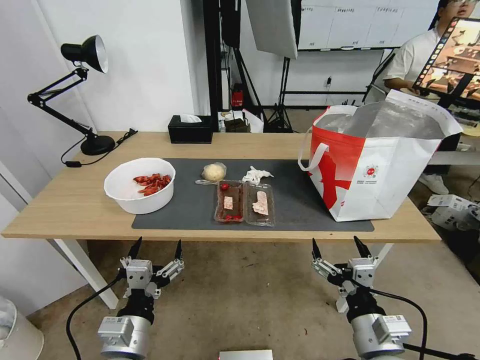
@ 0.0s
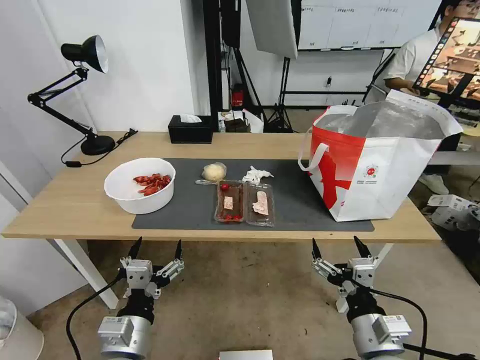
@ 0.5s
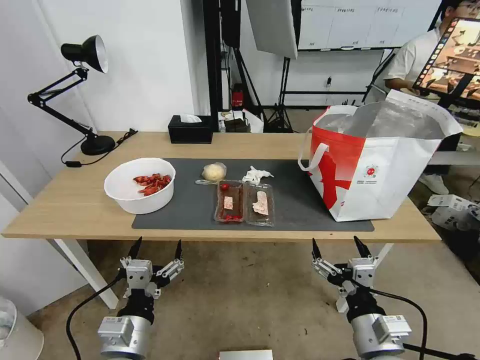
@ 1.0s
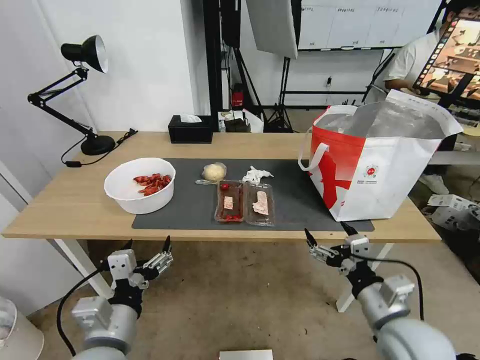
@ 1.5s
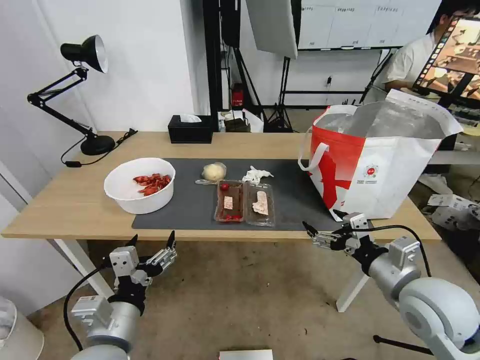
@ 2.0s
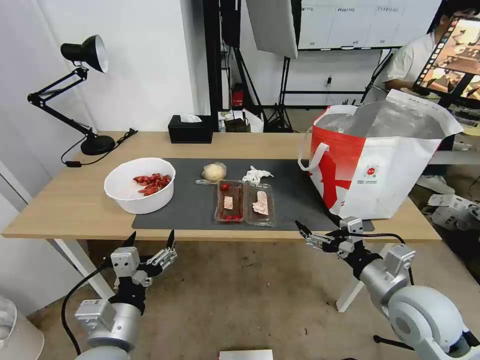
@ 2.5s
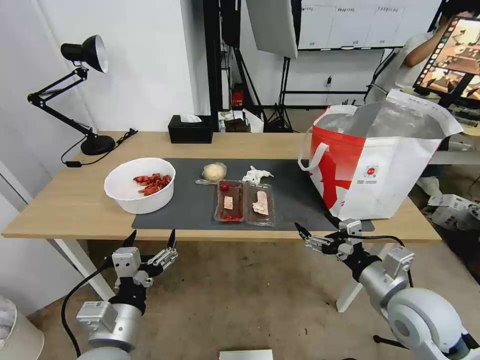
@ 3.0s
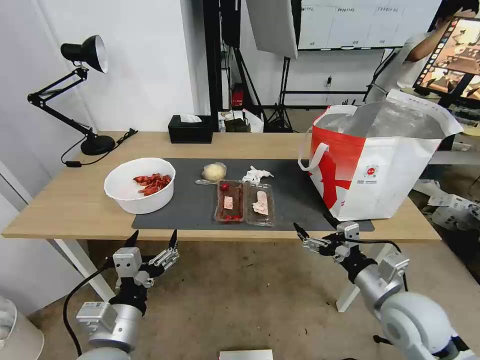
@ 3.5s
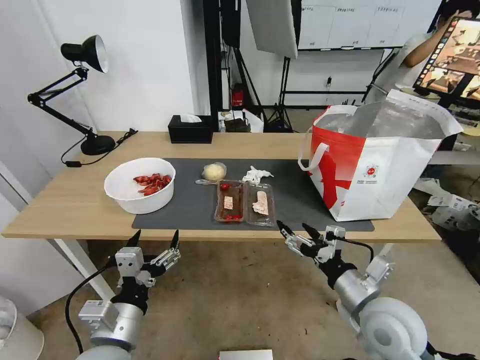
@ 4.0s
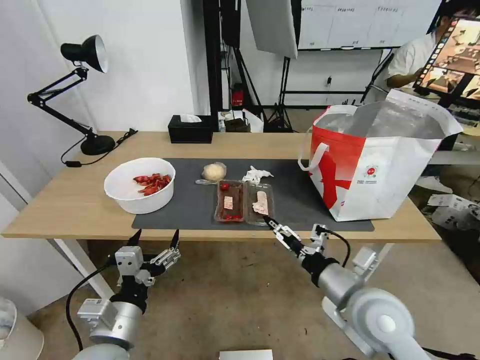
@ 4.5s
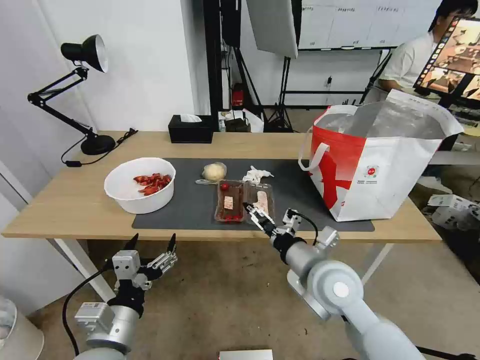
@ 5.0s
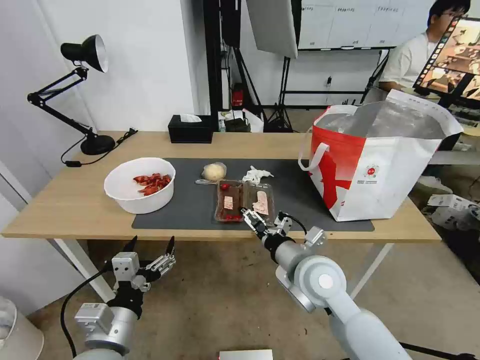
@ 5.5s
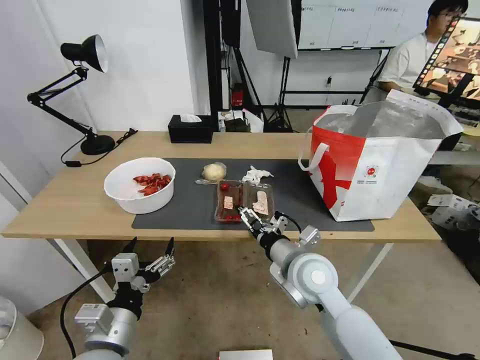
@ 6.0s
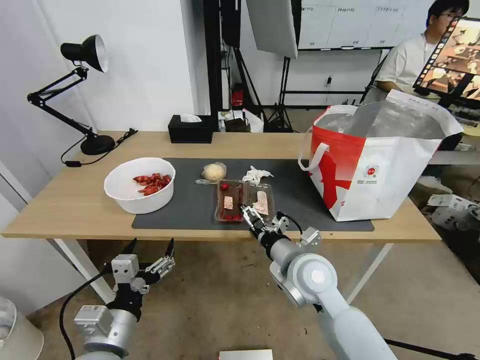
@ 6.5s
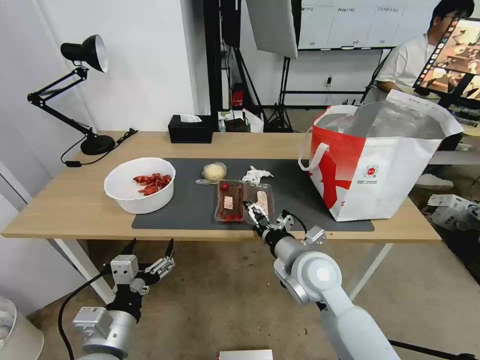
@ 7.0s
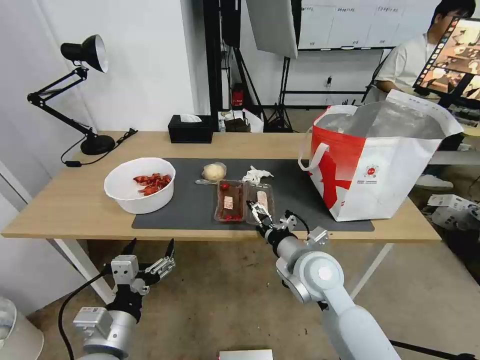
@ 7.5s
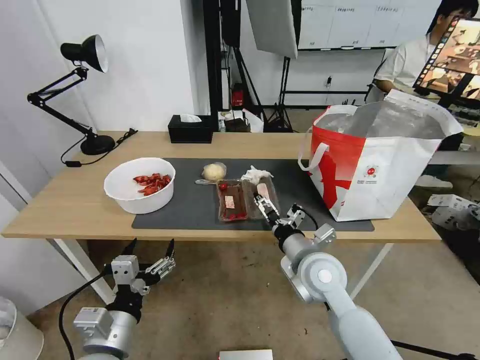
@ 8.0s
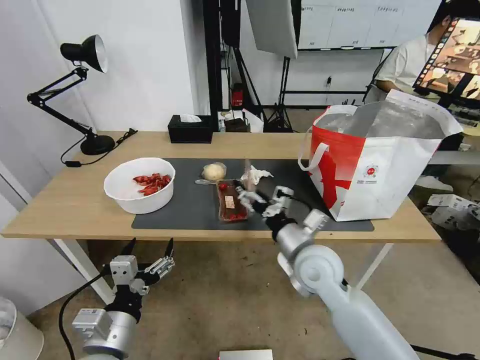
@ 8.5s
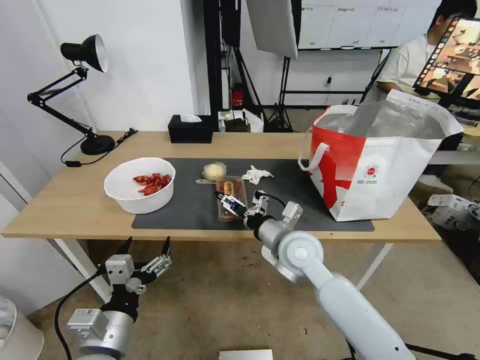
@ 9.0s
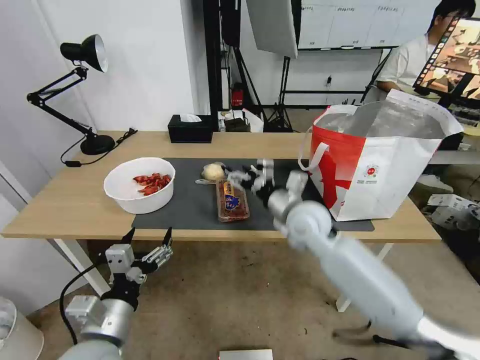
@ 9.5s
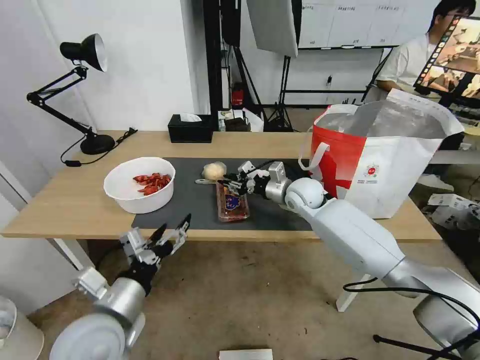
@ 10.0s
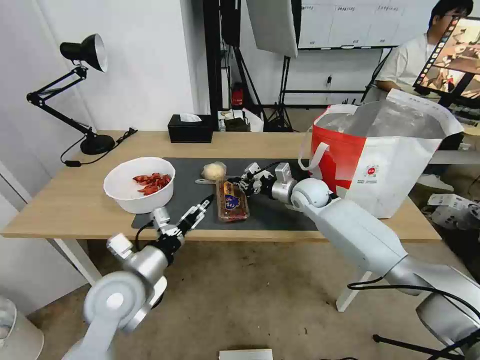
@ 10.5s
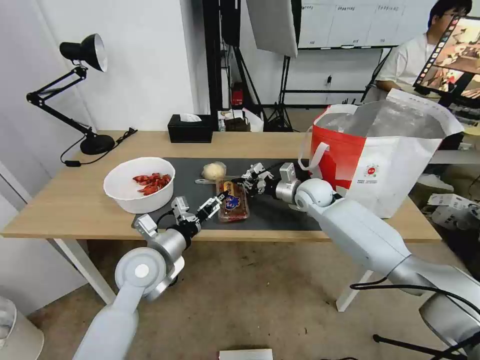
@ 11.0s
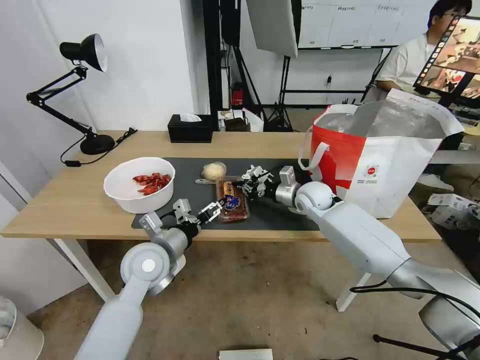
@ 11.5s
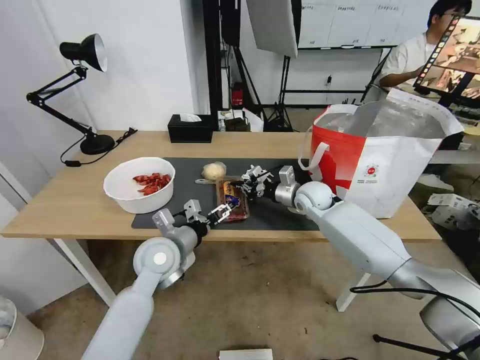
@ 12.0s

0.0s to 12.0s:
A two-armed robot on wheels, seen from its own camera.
Task of the whole recording: Pick up the trash from the table and place it into the takeout bag.
2.0s to 4.0s: The right gripper goes about 5 cm to the left.
4.0s to 6.0s: The right gripper moves to the left and forward, roughly 15 cm.
6.0s to 8.0s: The grippers make only small movements.
8.0s to 10.0s: The left gripper ends up approximately 5 cm from where it was. The right gripper goes roughly 20 cm forward, and closes its fingers.
10.0s to 12.0s: The left gripper heads forward, covering some 15 cm.

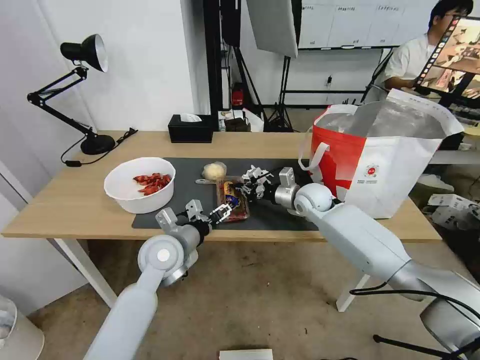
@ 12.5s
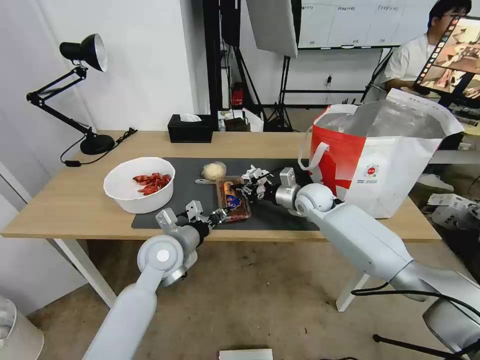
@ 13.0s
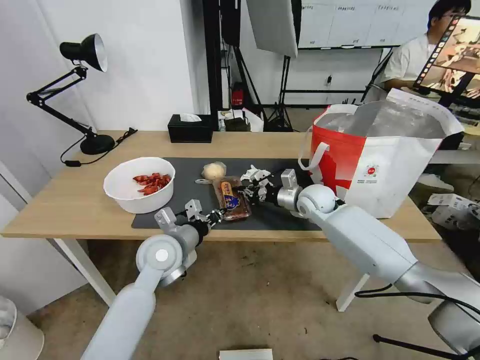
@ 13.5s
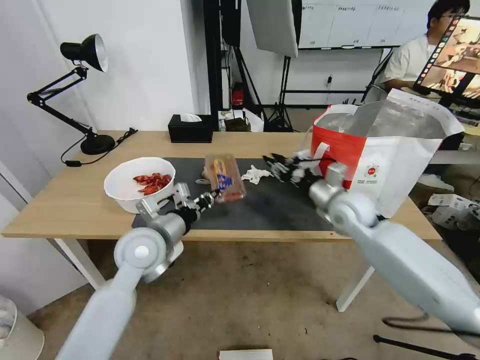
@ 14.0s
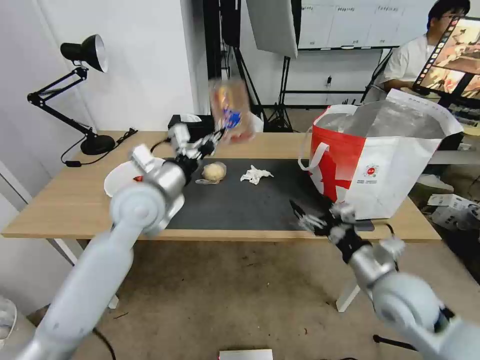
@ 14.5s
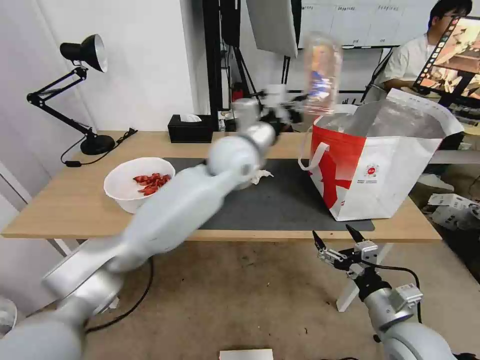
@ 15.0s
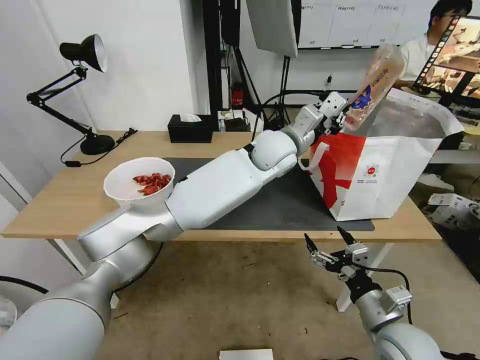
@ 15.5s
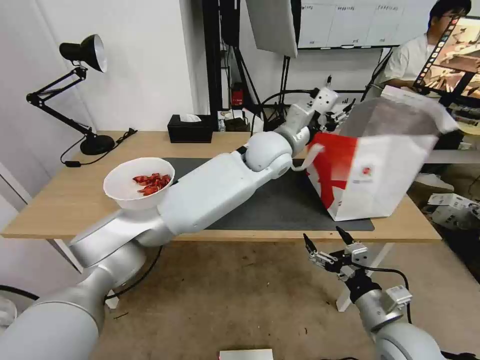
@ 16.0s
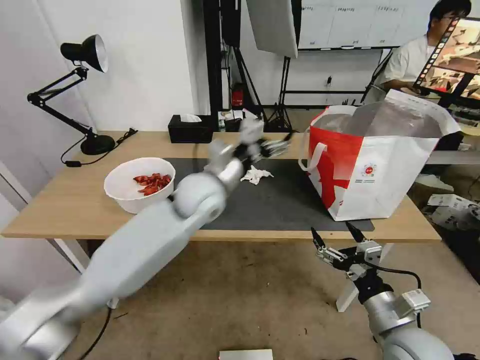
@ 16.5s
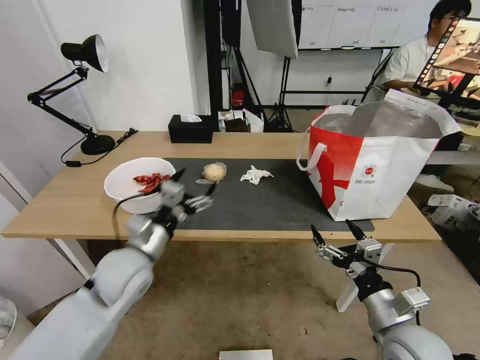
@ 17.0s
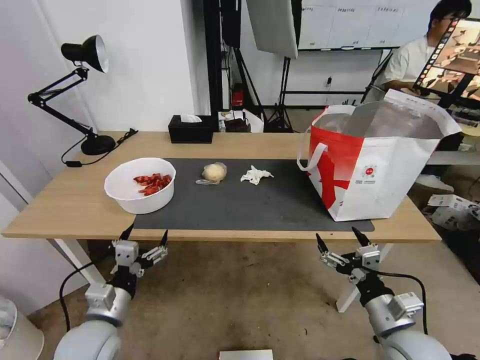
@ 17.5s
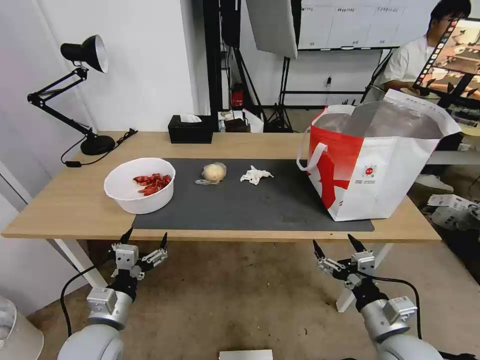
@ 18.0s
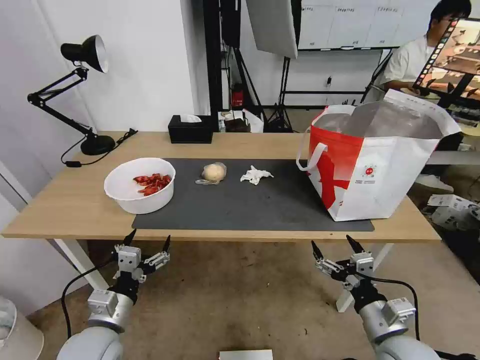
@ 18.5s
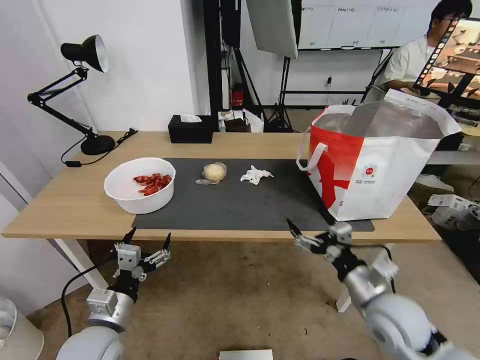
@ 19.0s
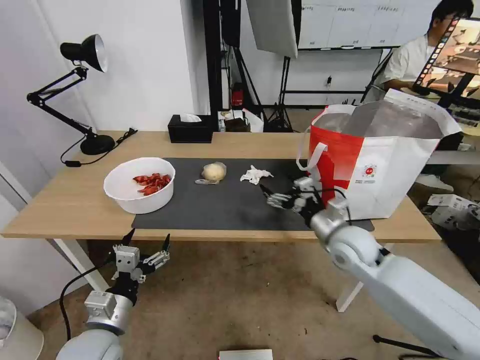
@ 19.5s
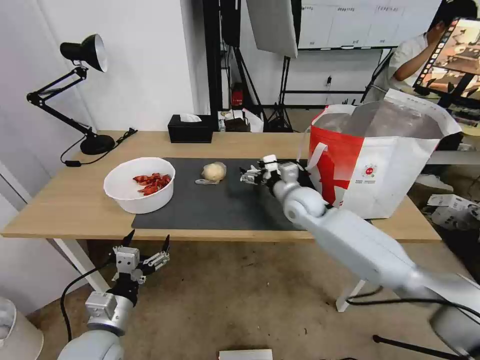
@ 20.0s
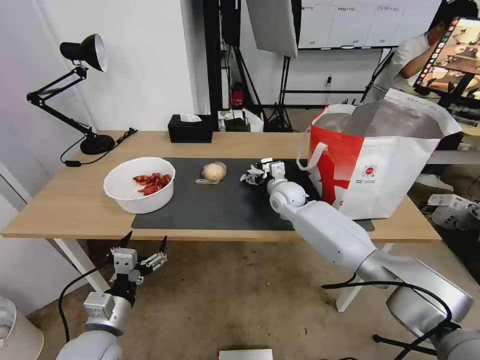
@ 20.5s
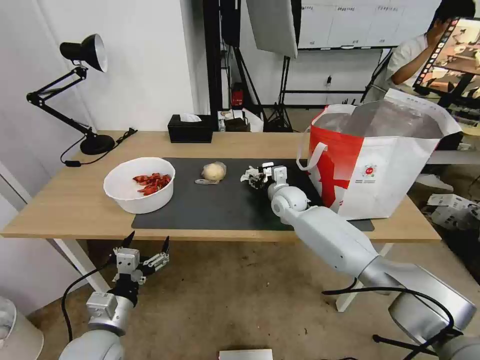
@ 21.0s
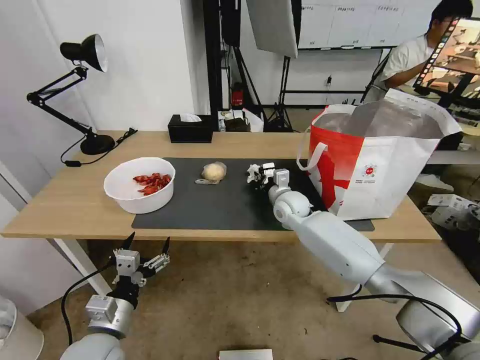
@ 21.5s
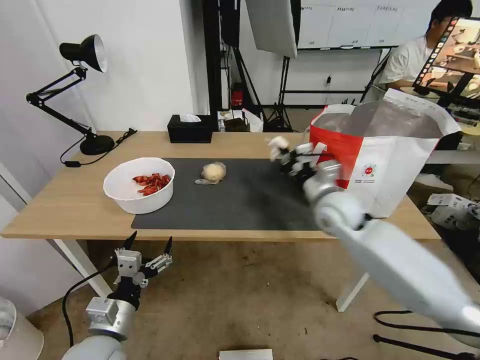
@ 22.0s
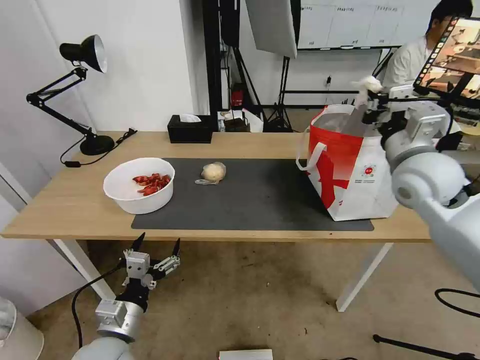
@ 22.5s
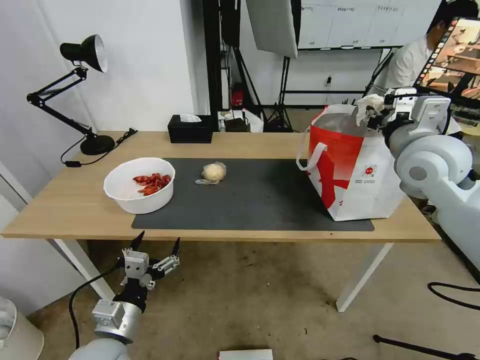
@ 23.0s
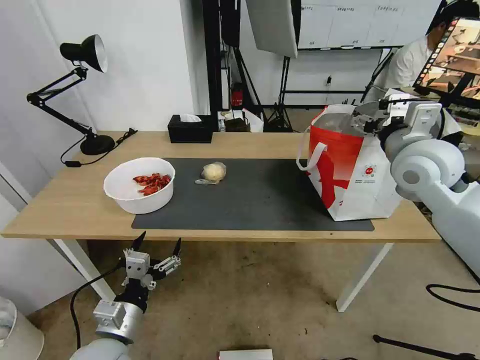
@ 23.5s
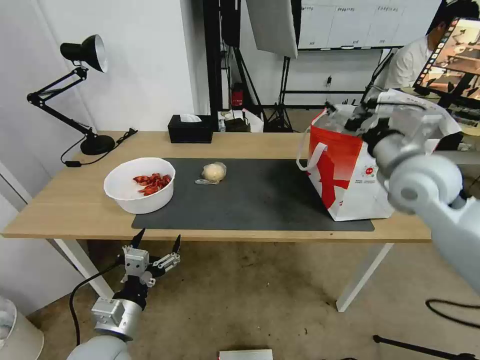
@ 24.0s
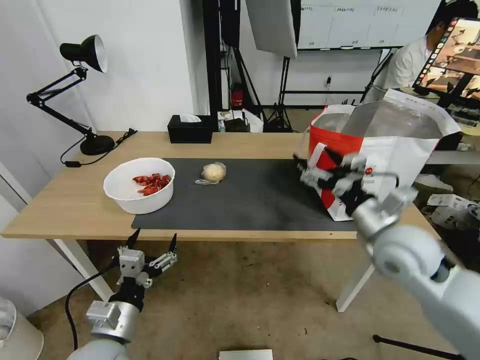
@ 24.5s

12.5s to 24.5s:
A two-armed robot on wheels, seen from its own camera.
Task of the whole recording: Pick up the trash from the table and place it into the takeout bag.
12.5s to 14.5s: The left gripper moves upward, about 15 cm, and closes up, while the right gripper goes about 30 cm backward, and opens its fingers.
14.5s to 16.5s: The left gripper moves to the right, about 10 cm, and opens; the right gripper travels backward by roughly 5 cm.
16.5s to 18.5s: The left gripper shifts roughly 35 cm backward, to the left and downward.
18.5s to 20.5s: The right gripper travels forward and to the left by roughly 40 cm.
20.5s to 22.5s: The right gripper goes approximately 30 cm upward, to the right and backward, and closes.
22.5s to 24.5s: The right gripper goes approximately 15 cm downward and backward, and opens its fingers.

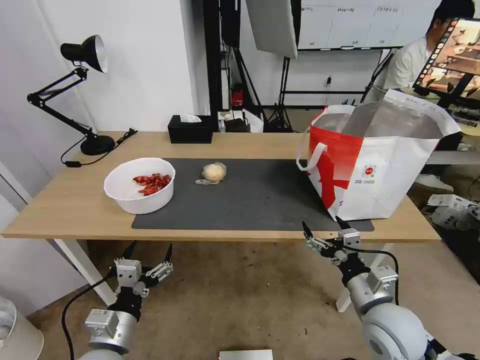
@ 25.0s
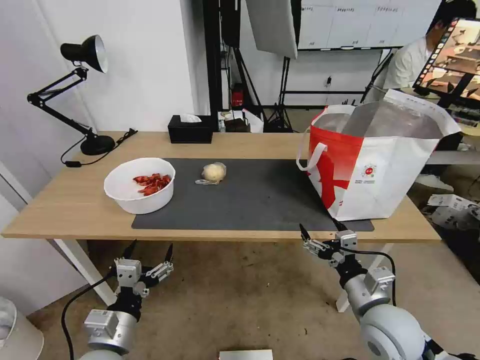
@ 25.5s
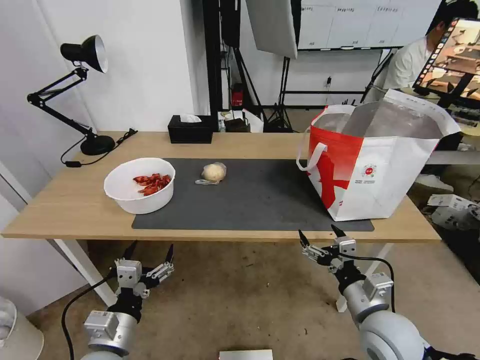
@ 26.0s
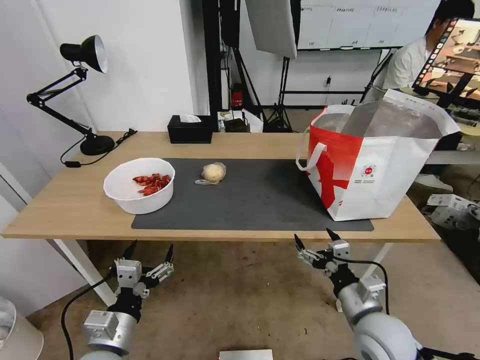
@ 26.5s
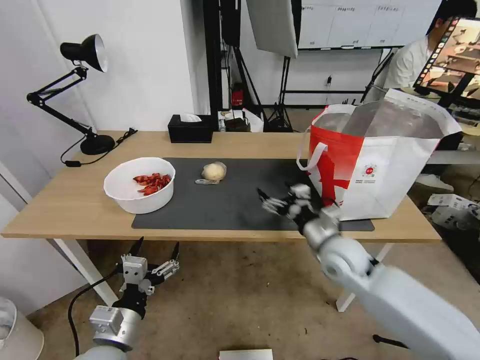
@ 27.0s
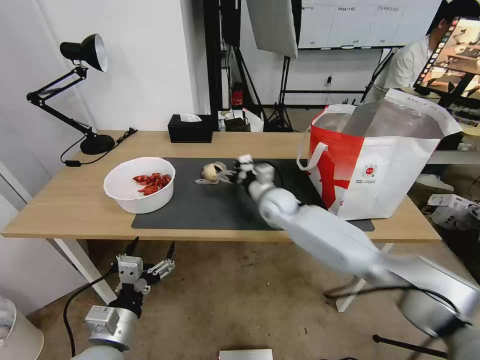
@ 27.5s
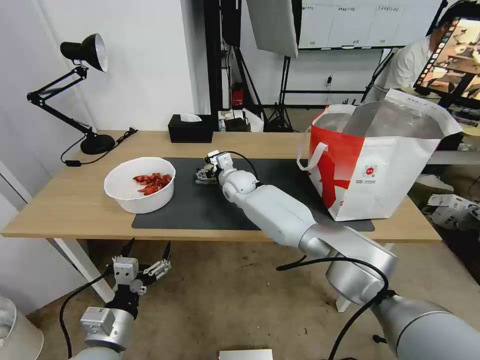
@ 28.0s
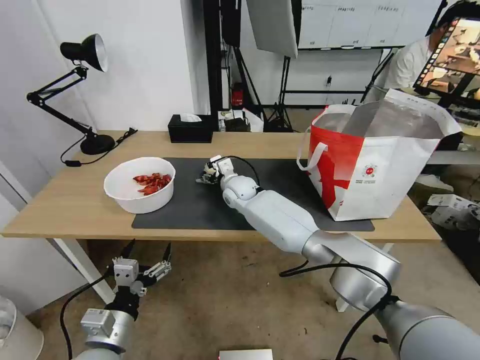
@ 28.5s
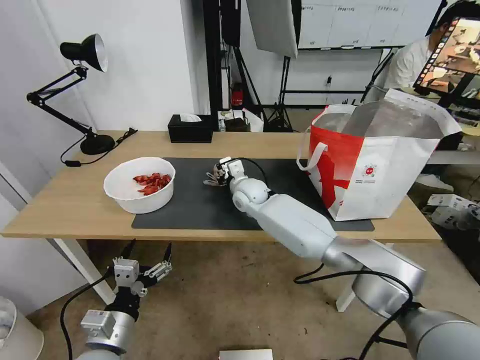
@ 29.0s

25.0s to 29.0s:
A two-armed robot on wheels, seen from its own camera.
Task of the whole recording: Pick up the trash from the table and place it into the takeout bag.
25.0s to 27.0s: The right gripper travels forward by some 15 cm.
27.0s to 29.0s: The right gripper travels to the left and forward by roughly 25 cm, and closes.
